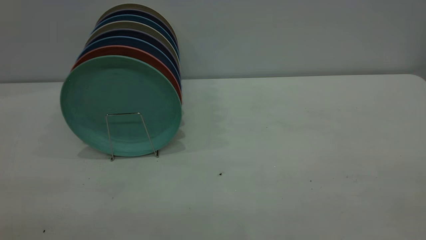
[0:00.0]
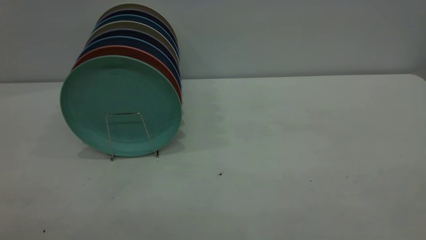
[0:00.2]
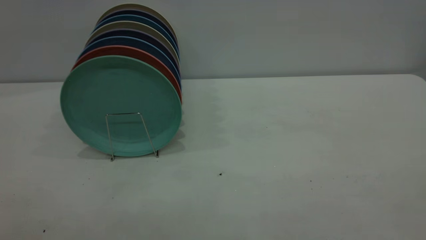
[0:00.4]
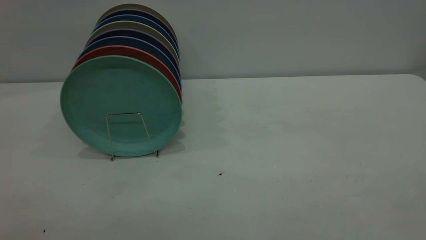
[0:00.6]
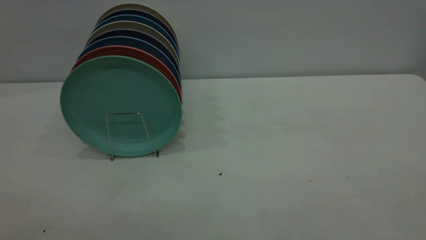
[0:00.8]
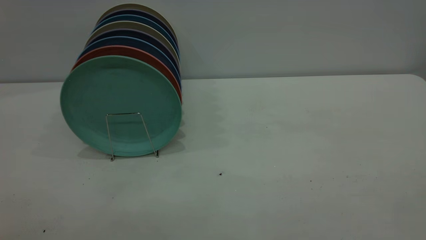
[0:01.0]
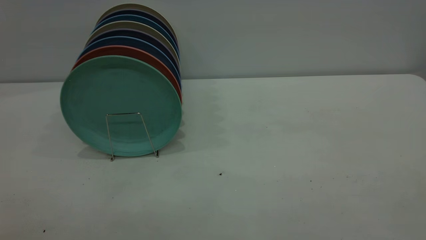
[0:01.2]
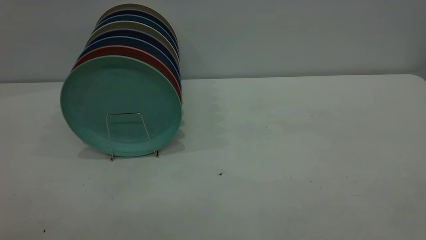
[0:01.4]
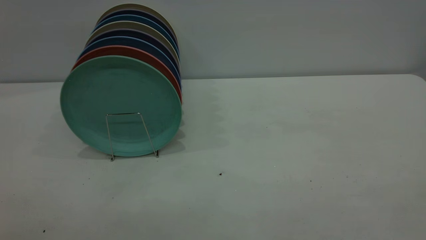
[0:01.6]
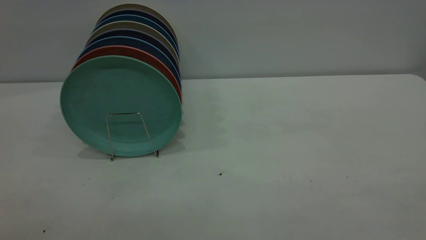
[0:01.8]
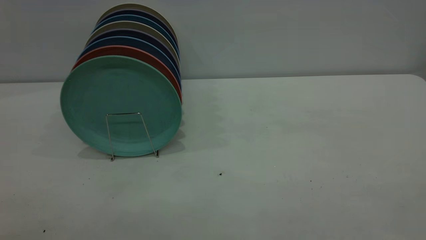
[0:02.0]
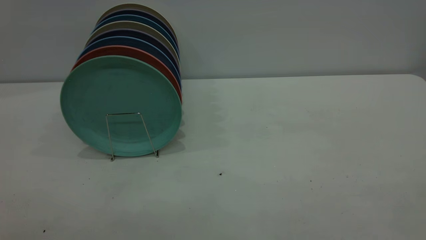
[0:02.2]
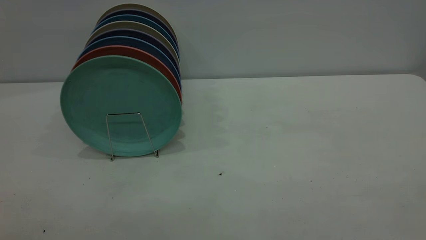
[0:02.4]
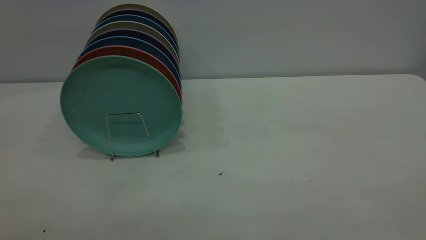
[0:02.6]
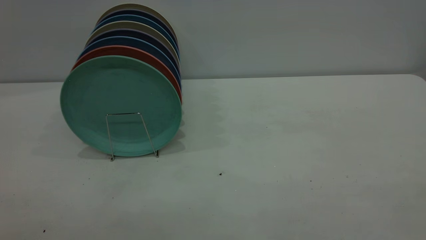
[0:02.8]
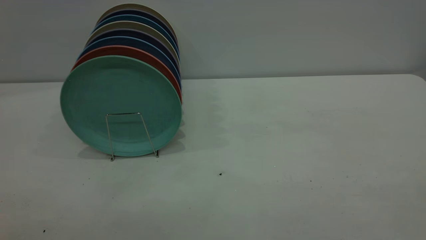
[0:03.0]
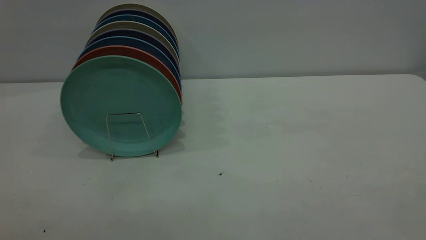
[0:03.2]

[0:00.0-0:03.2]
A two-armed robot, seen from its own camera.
Task of the whole recording: the right gripper grasp the green plate, the right gripper pass the green plate to the left gripper, and the left gripper place the green plate on the plate rack.
0:01.6 to 0:03.2: Both grippers stay put.
